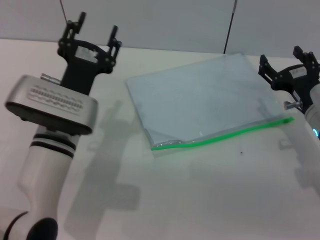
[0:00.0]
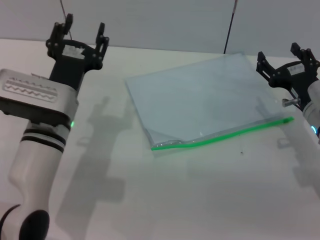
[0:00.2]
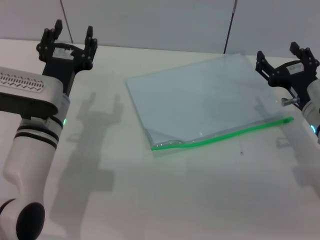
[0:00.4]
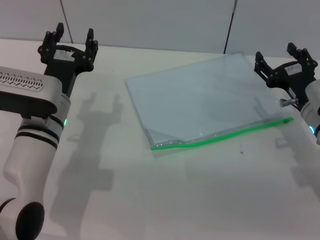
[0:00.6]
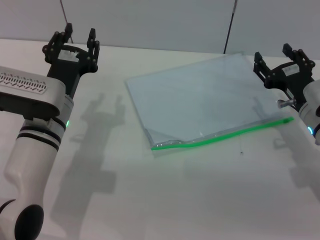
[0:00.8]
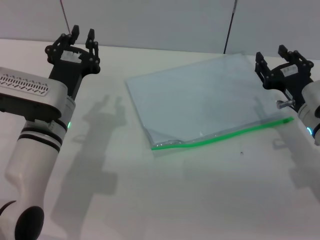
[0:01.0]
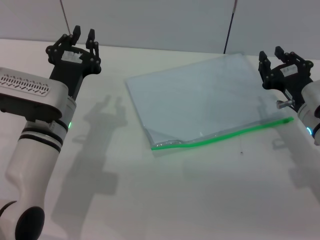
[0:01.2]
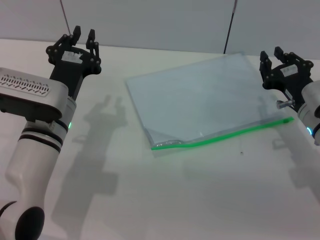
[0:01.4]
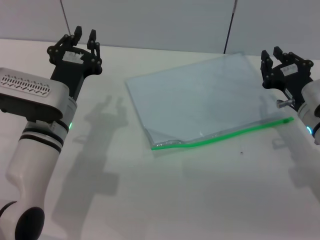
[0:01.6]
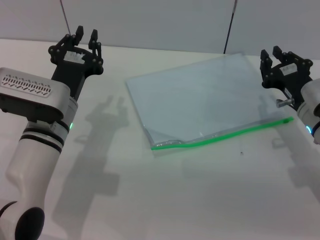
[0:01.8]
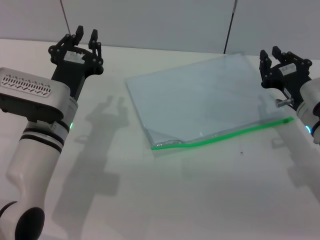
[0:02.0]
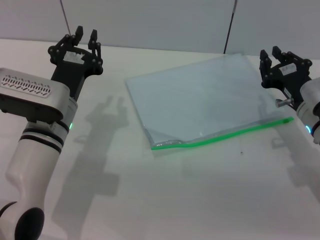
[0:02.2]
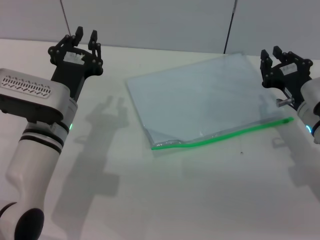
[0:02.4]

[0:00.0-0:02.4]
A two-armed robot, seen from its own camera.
0:00.0 to 0:01.2: The left gripper closes.
0:01.2 to 0:02.4: The right gripper closes.
